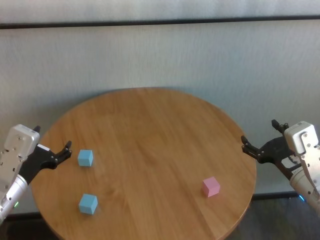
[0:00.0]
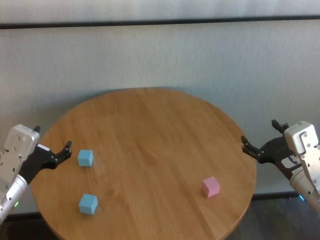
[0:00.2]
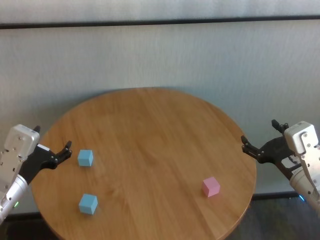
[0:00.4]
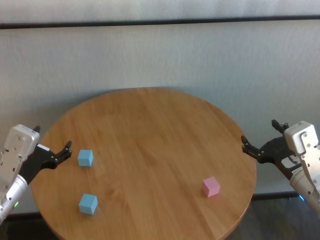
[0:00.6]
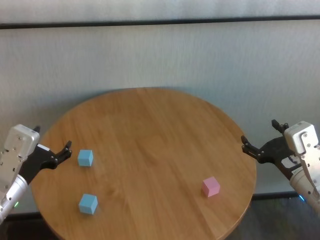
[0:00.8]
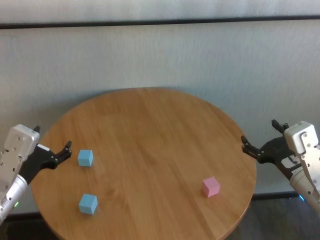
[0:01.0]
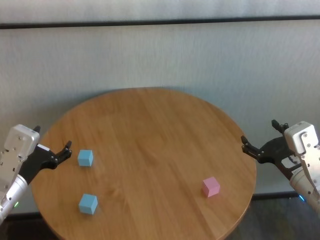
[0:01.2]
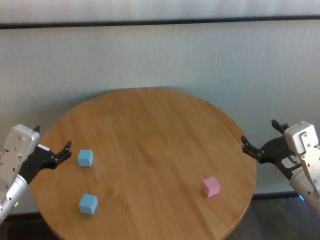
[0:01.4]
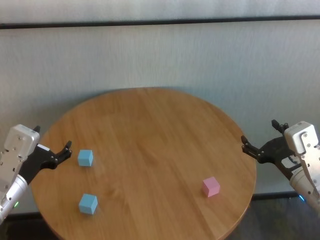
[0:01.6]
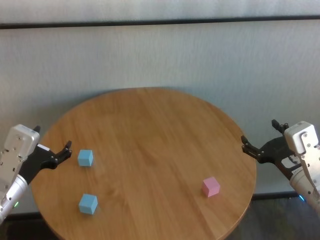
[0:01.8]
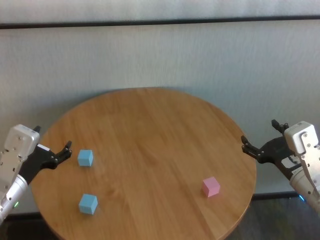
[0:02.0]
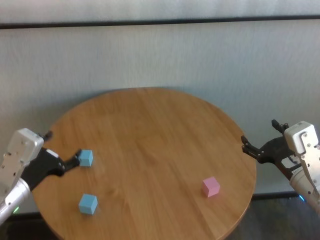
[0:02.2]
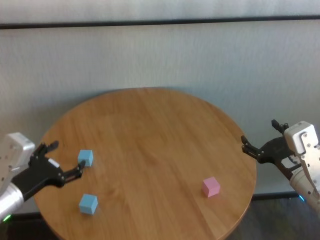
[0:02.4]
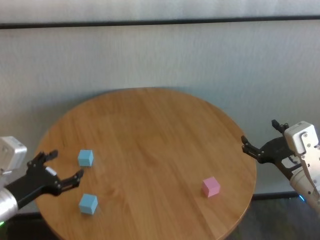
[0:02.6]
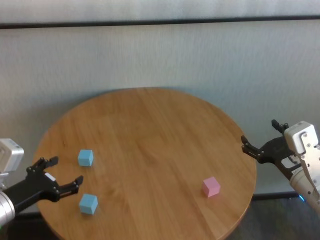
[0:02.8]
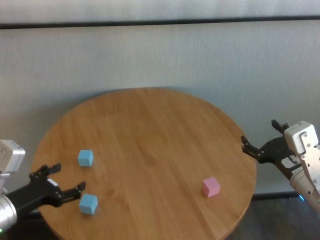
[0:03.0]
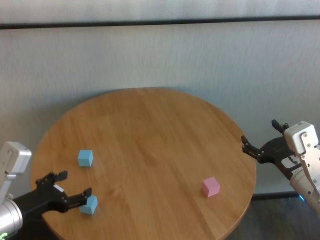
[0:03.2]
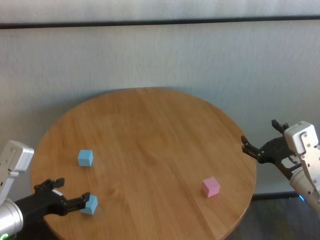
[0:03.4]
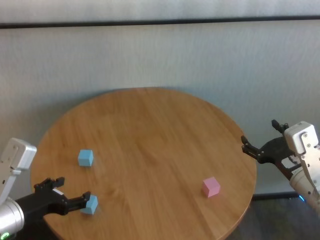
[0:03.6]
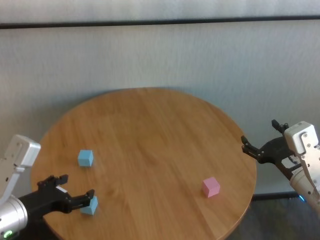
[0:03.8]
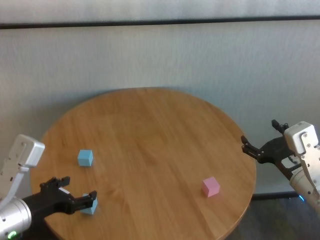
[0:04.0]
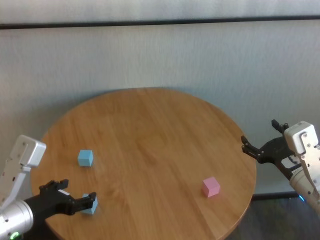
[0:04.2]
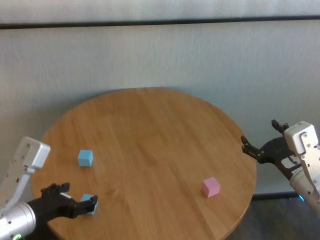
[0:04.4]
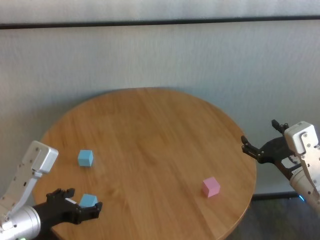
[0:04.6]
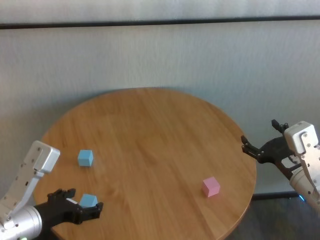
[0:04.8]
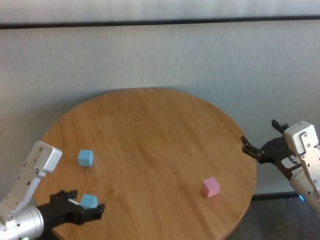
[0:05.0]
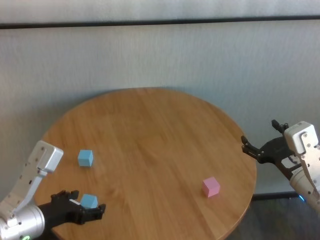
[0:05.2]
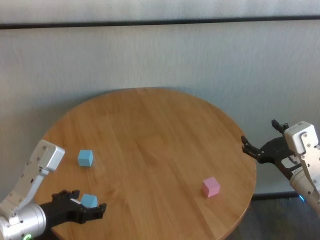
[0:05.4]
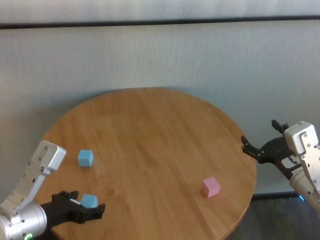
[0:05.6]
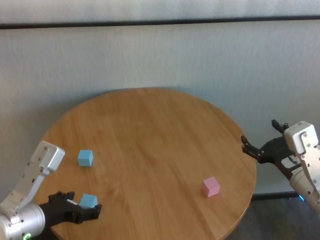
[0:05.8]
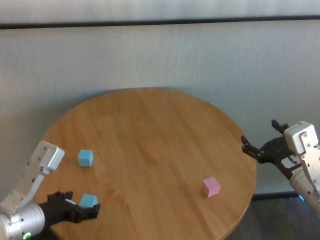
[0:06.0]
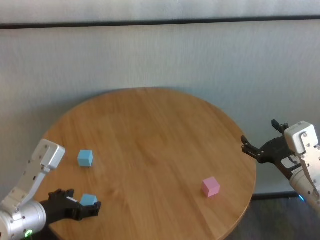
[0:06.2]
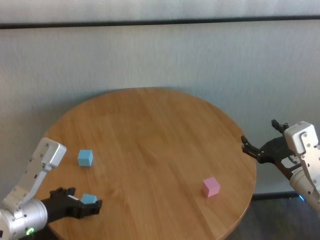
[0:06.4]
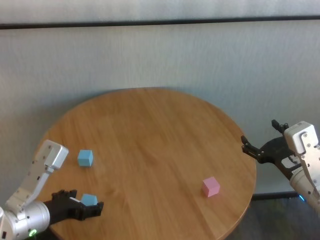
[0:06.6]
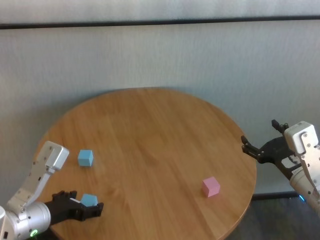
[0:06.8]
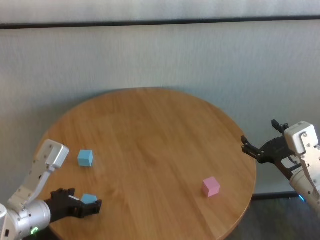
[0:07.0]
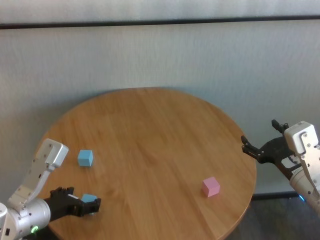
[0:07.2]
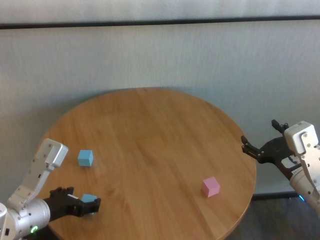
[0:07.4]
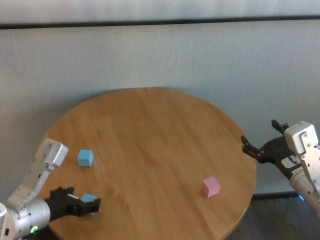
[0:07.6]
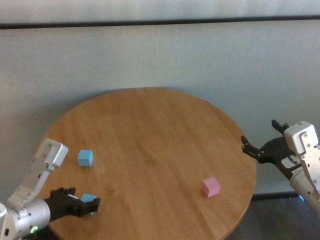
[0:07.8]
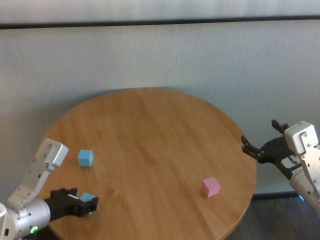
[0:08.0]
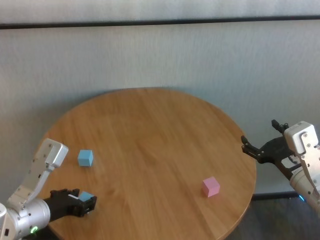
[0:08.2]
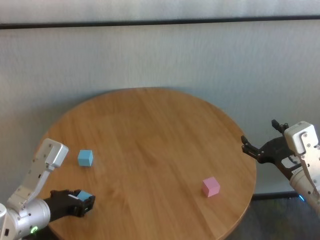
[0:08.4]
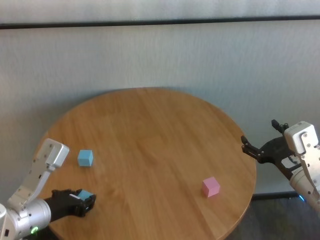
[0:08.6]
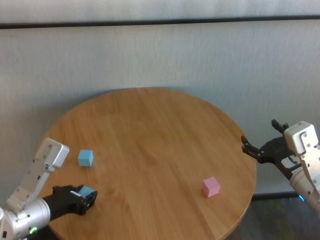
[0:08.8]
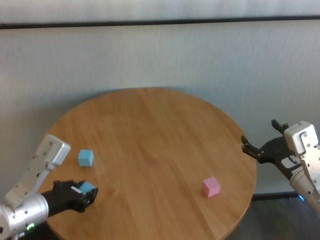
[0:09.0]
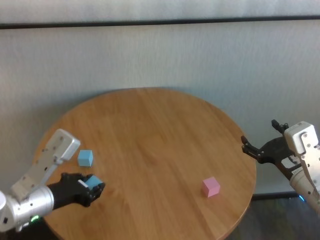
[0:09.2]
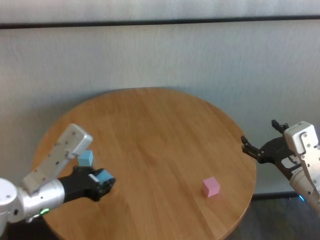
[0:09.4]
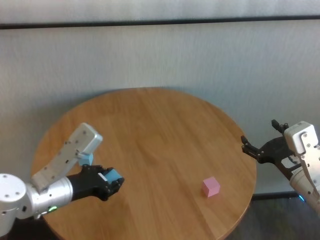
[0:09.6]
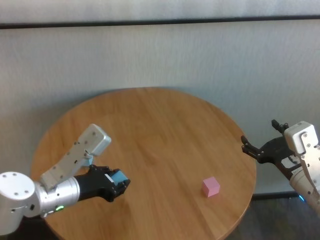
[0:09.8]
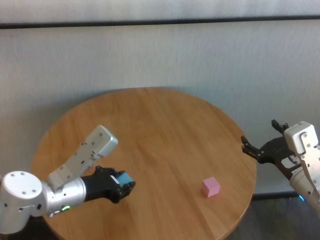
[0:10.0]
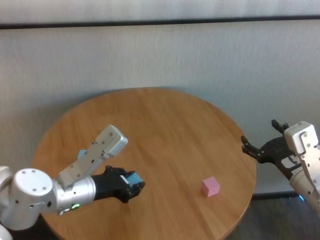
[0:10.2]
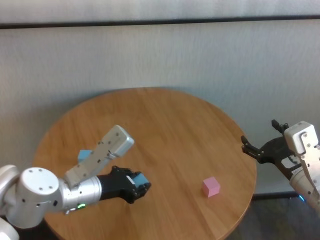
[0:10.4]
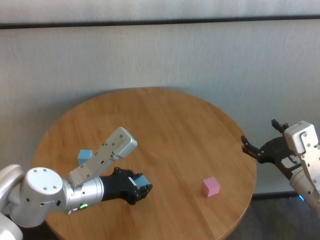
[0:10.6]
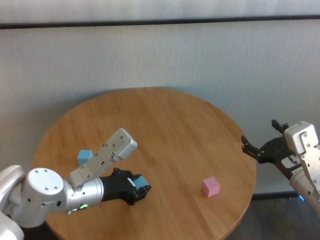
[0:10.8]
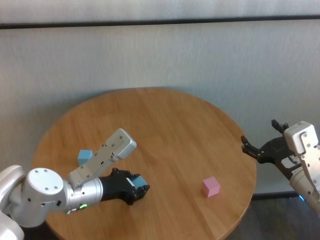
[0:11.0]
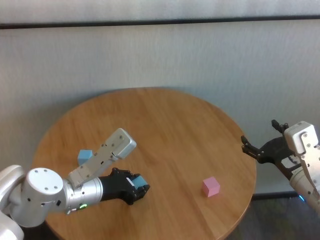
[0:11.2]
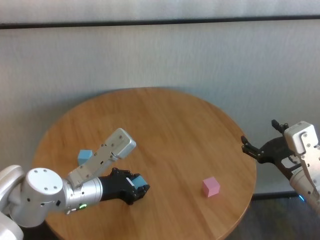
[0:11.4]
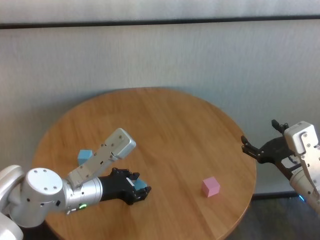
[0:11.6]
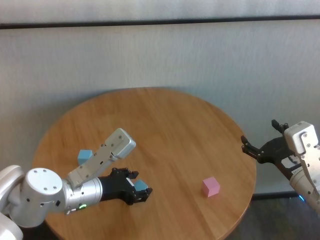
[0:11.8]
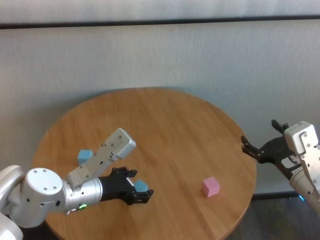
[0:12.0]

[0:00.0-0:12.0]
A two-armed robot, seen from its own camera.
Task of the whole recording: stack building blocks on the table.
Step, 0:00.0 to 0:08.4: Grasp the blue building block with left gripper.
Step, 0:08.6 to 0:11.8: Place the blue building block in the center of table with left gripper.

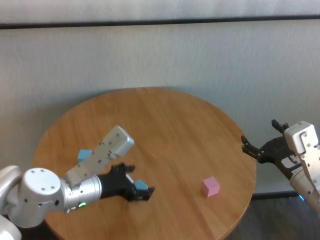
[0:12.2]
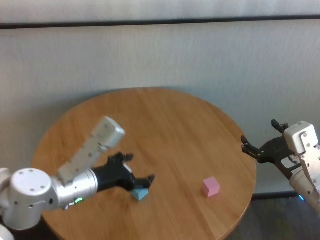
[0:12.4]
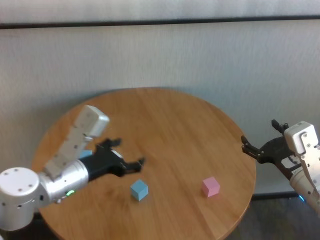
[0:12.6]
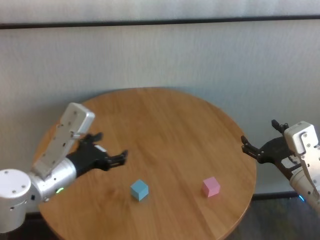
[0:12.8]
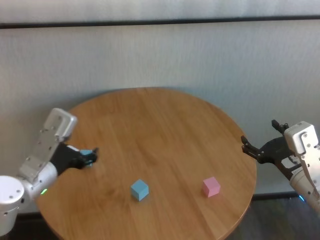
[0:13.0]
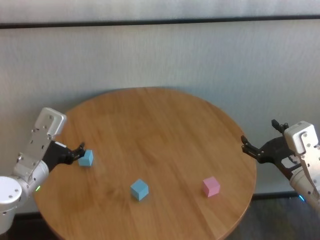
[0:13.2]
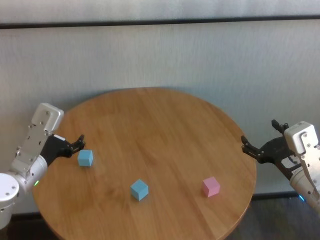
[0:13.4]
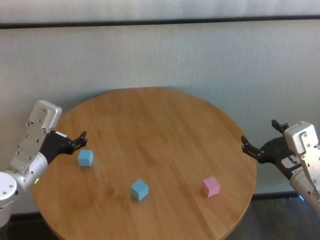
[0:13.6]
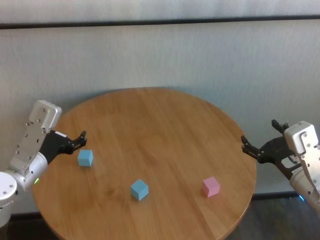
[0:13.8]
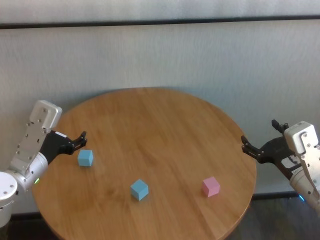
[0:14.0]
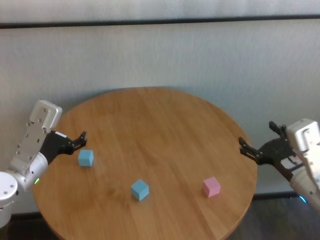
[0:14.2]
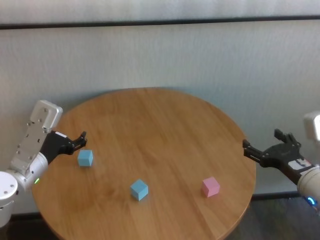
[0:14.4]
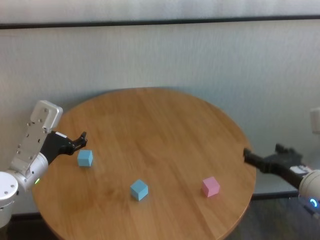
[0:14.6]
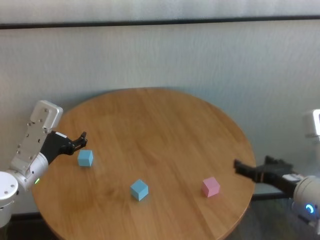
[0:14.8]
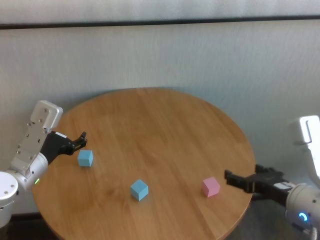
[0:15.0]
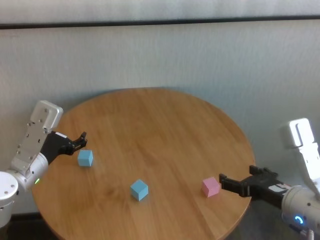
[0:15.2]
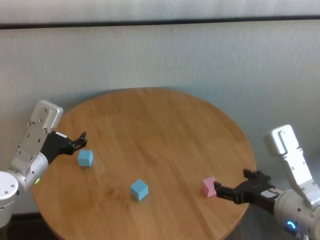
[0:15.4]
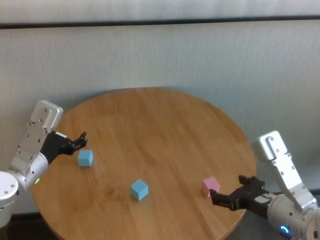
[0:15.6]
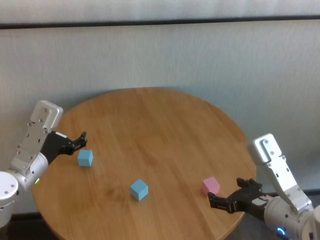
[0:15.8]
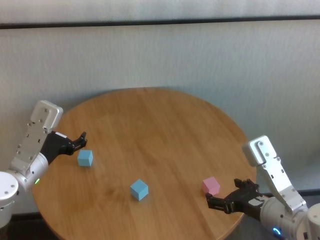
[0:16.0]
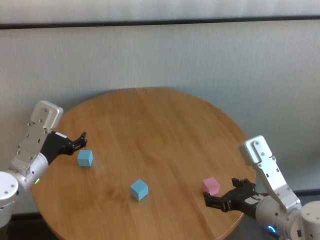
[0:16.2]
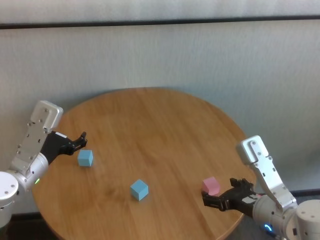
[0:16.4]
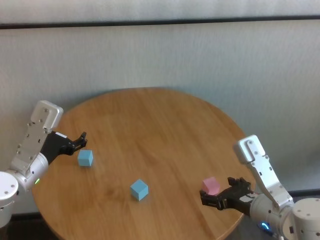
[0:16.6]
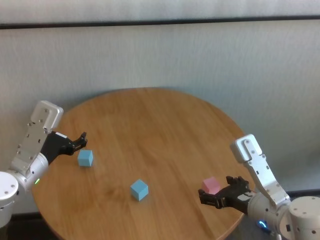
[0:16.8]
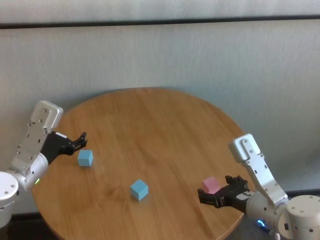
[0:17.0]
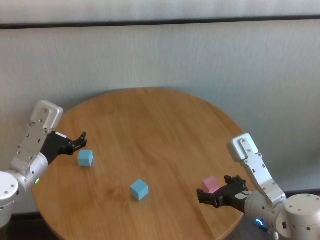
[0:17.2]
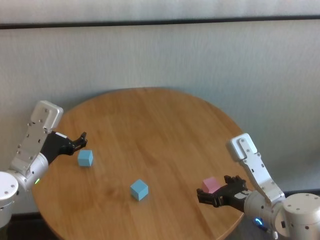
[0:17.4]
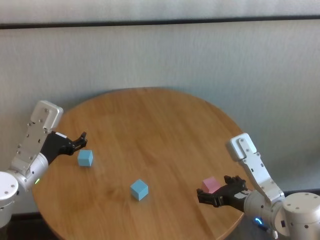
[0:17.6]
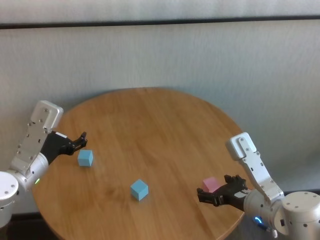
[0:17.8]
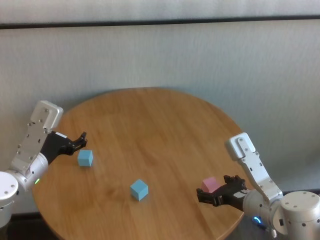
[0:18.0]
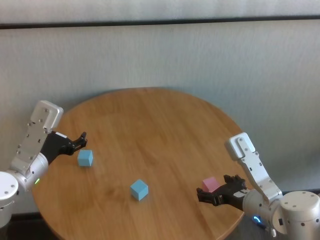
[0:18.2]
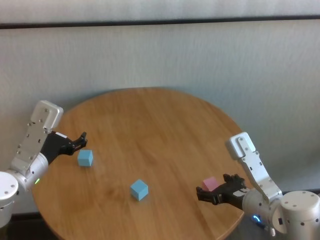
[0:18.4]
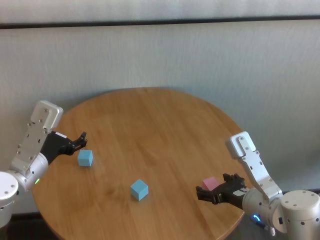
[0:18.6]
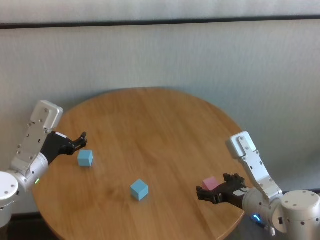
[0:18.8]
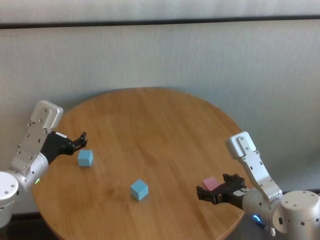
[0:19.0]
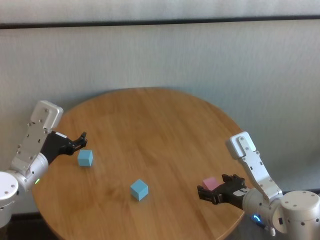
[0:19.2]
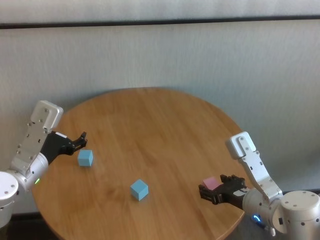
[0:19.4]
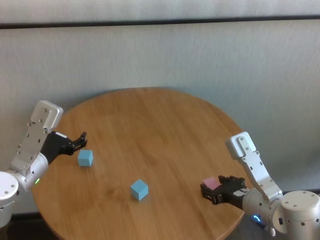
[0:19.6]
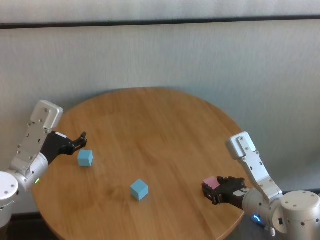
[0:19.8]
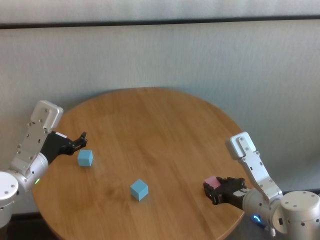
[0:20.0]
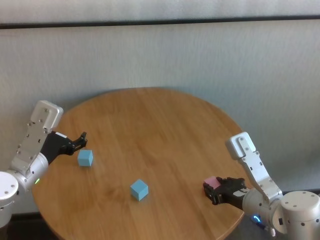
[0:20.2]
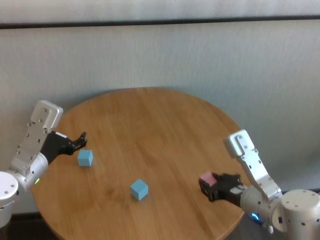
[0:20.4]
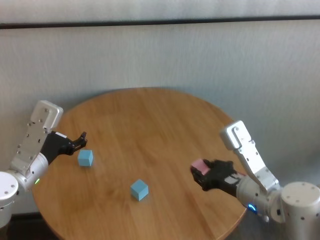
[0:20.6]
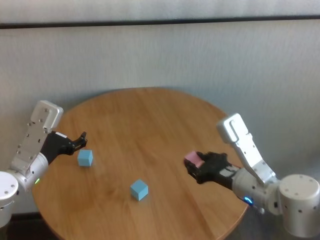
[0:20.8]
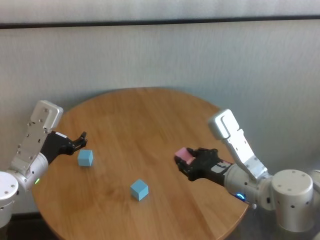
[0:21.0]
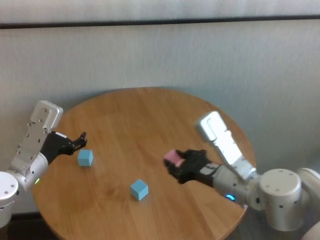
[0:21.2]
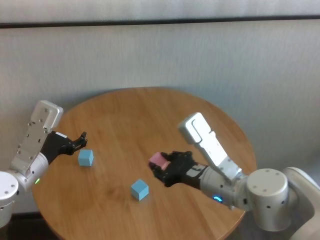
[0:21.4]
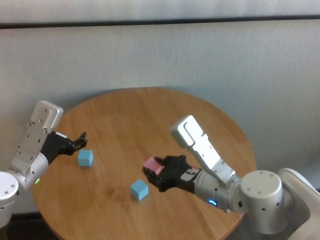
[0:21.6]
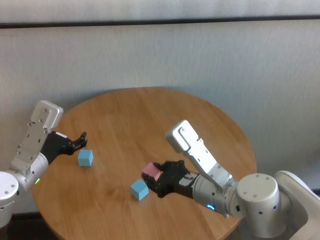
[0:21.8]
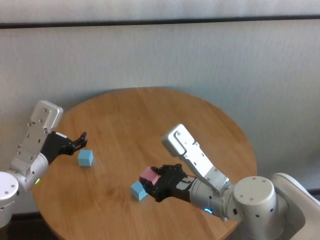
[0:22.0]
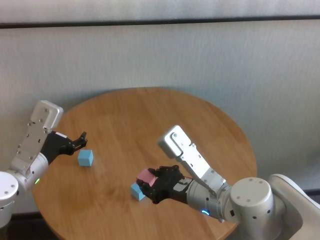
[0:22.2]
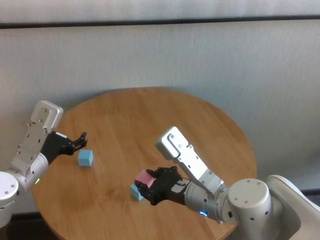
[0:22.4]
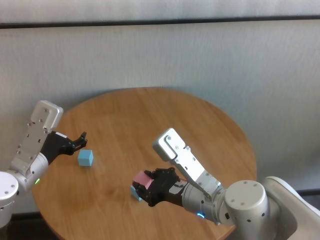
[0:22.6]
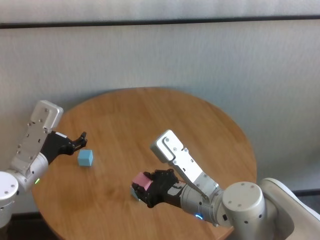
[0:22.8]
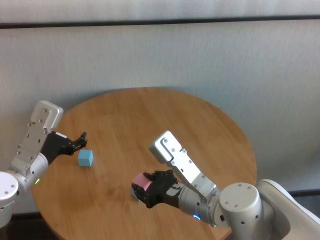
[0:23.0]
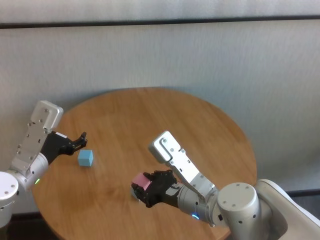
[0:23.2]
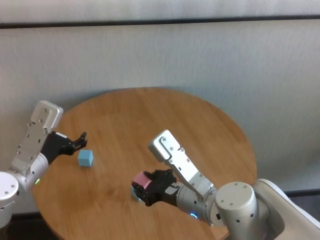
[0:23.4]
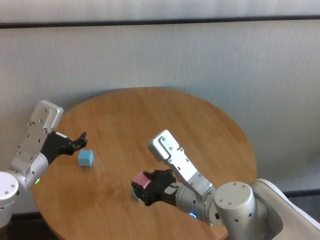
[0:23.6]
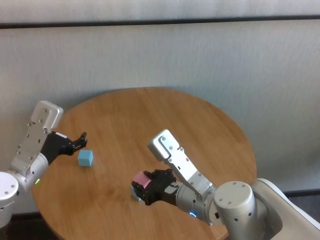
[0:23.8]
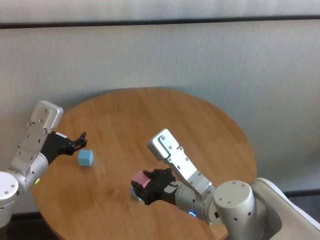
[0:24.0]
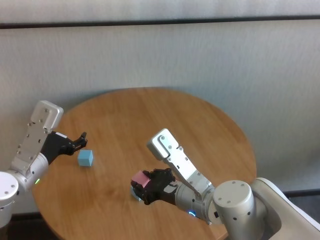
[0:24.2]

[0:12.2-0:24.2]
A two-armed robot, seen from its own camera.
Task of the whole recording: stack building blocks on the table.
Step, 0:12.2 to 0:20.0: Grasp the pink building block with right gripper.
